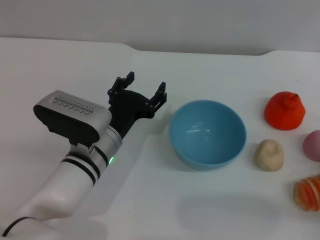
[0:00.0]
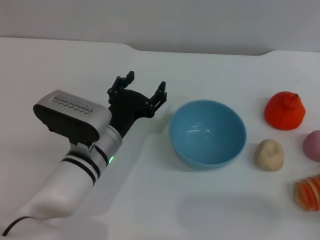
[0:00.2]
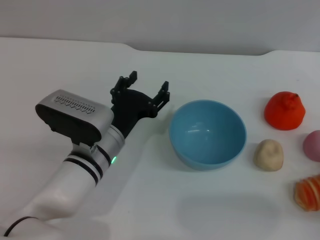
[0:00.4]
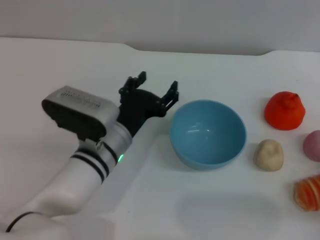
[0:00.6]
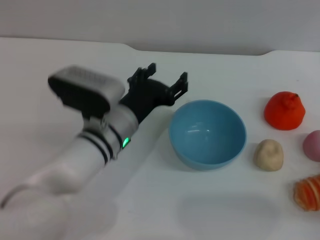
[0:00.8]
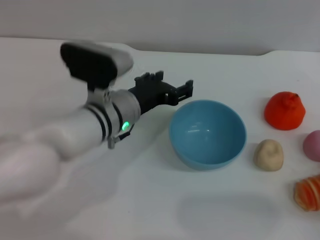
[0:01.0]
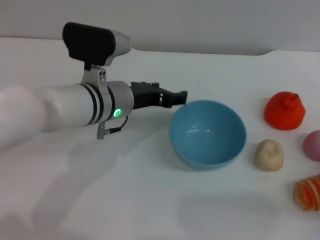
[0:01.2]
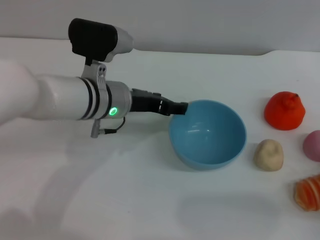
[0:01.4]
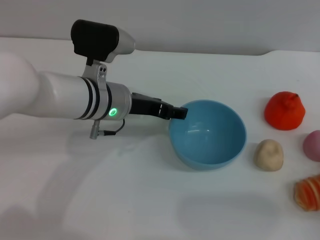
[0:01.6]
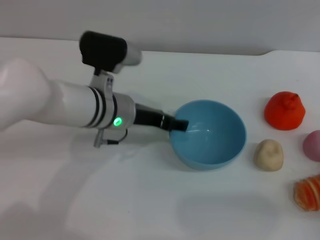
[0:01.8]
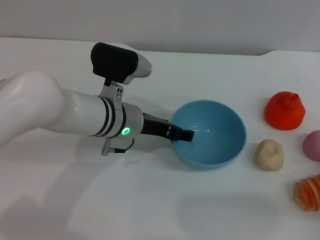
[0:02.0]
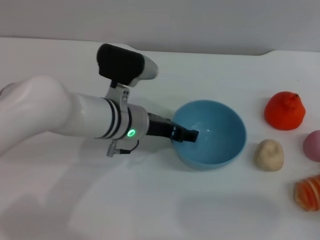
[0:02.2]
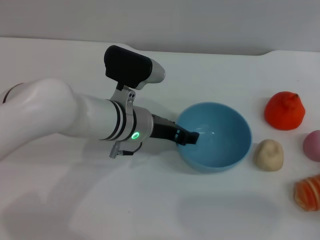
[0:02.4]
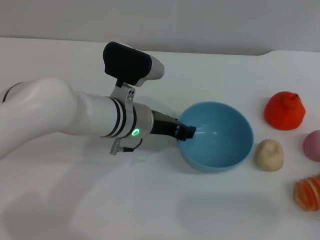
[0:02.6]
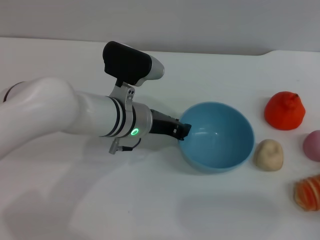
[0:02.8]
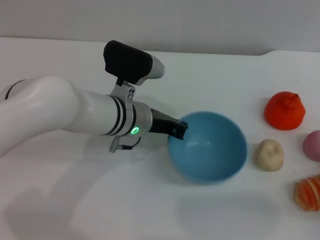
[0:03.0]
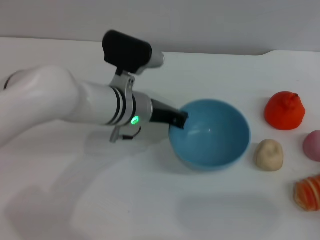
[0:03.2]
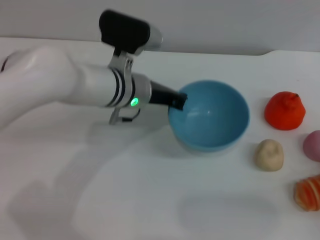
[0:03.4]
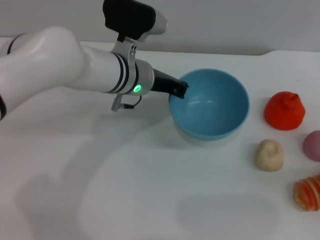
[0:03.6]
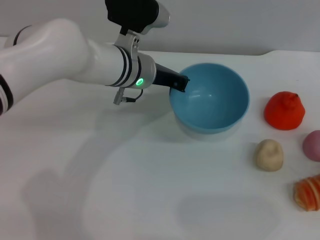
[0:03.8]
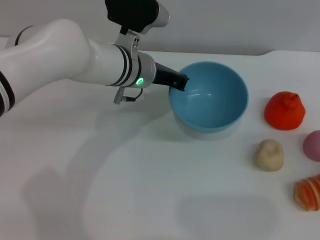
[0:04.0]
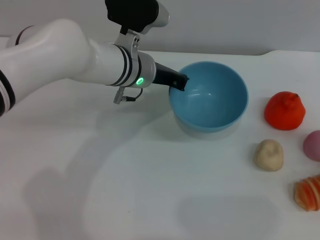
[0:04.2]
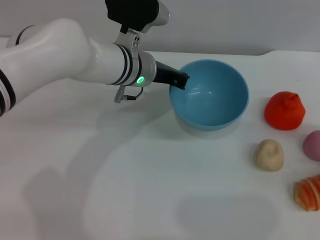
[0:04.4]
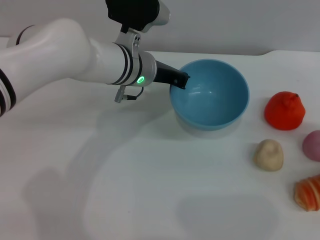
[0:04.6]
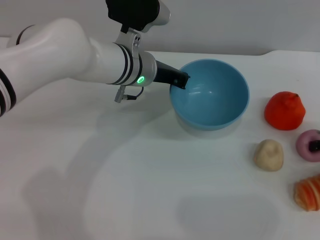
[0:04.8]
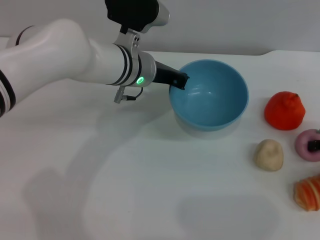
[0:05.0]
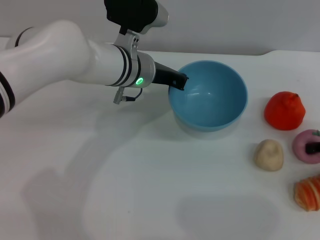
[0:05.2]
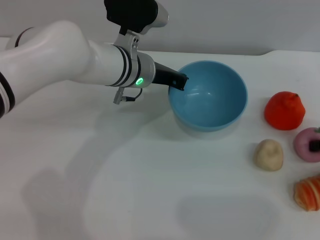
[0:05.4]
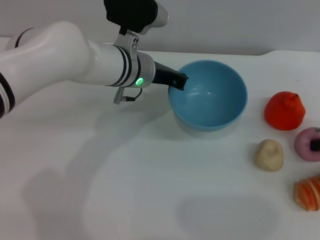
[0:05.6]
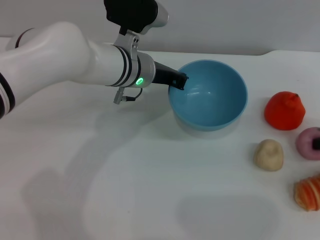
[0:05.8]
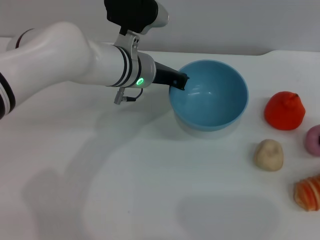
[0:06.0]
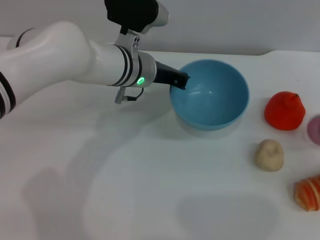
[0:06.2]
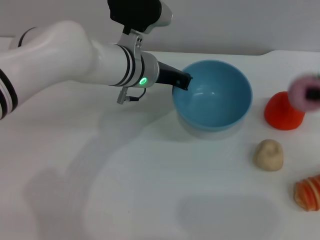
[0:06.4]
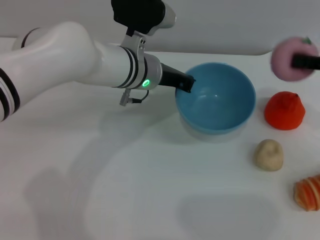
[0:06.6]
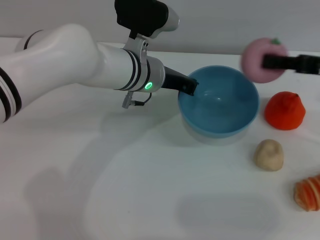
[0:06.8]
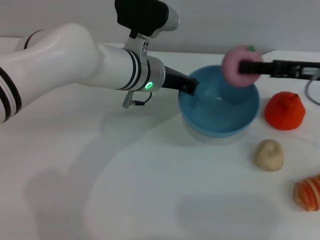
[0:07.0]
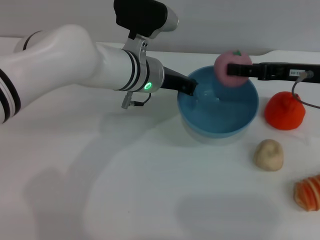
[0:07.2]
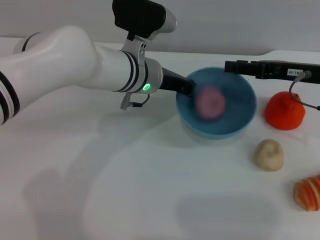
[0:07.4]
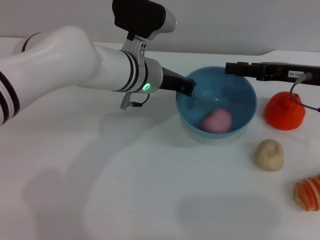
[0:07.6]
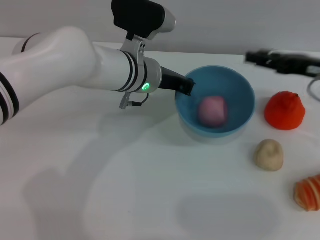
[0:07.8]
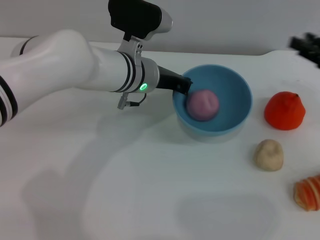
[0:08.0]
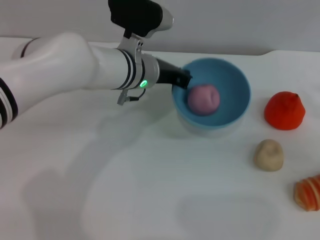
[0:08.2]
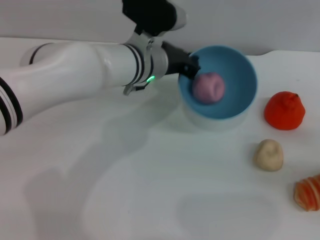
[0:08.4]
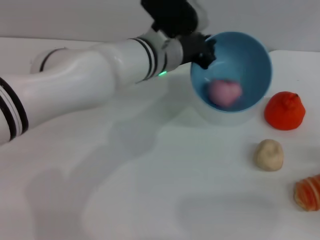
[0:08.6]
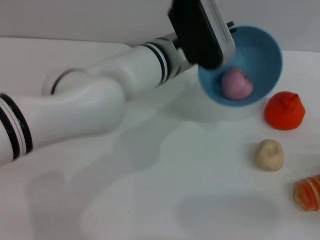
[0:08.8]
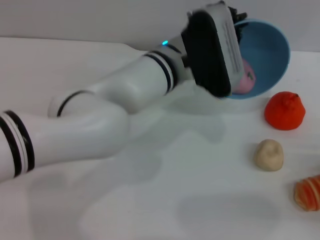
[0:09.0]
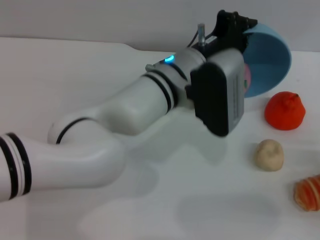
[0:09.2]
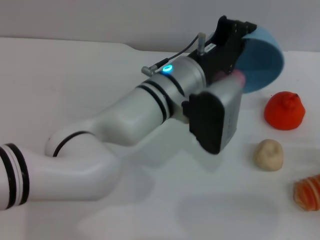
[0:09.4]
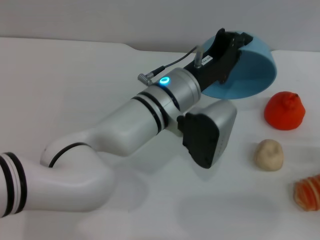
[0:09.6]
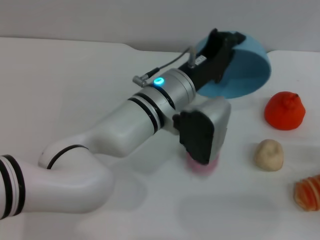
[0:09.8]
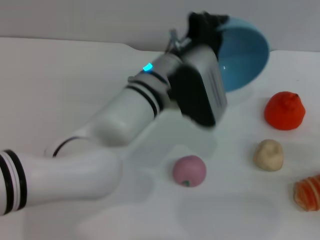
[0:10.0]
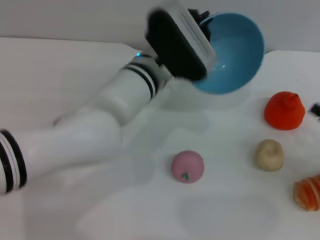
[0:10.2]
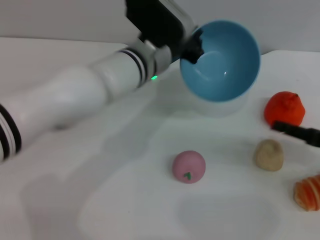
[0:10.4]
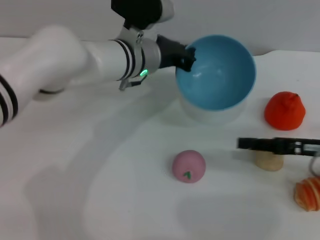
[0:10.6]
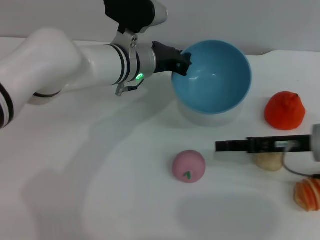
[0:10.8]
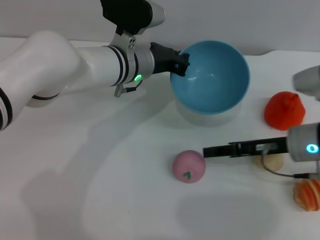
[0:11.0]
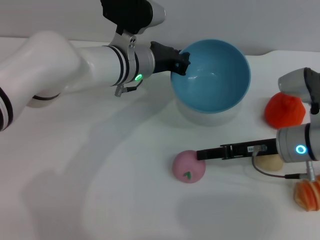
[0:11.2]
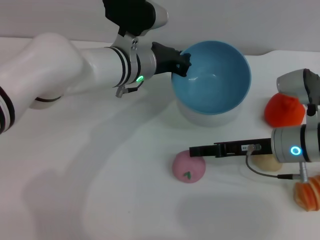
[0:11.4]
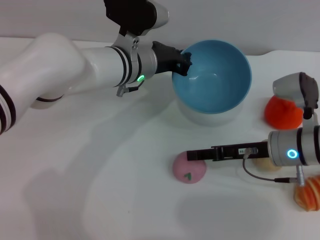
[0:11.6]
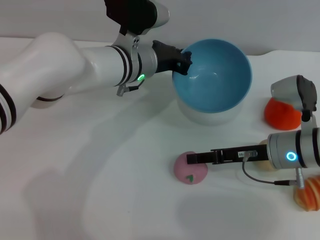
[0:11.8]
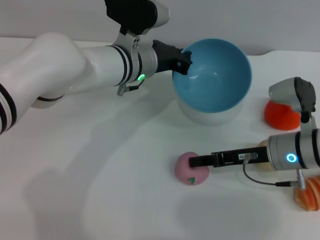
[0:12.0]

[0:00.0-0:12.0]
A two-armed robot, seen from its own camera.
Task of the whole recording: put the peach into the blue bowl and pour it out repeatedly.
Step, 0:00.0 to 0:04.8: Pick up the bowl with the left gripper.
Step, 0:05.0 to 0:06.2: Pick up the peach with the right gripper.
Step, 0:06.6 to 0:07.6: Place the peach into the bowl.
Step, 0:07.8 to 0:09.8: Pour the peach out of bowl.
0:00.0 to 0:01.6: The left gripper moves upward and forward, approximately 10 cm.
0:01.6 to 0:03.0: The left gripper closes its fingers.
0:03.0 to 0:04.4: The left gripper goes some 5 cm forward. The right gripper heads upward, forward and to the right, covering roughly 15 cm.
0:04.4 to 0:06.0: The right gripper closes.
0:06.0 to 0:07.6: The right gripper shifts approximately 10 cm to the left.
0:07.6 to 0:09.0: The left gripper moves to the right, approximately 5 cm; the right gripper heads backward, to the right and downward, covering some 25 cm.
0:09.0 to 0:10.4: The left gripper moves about 5 cm. The right gripper goes approximately 10 cm forward, to the left and upward.
0:10.4 to 0:12.0: The right gripper is displaced to the left by roughly 15 cm.

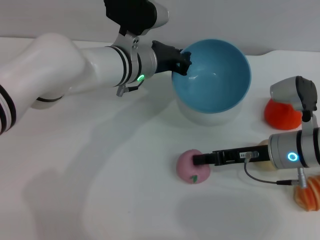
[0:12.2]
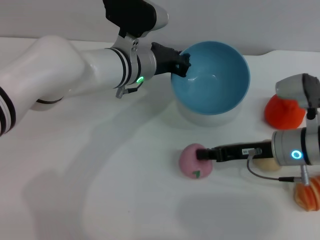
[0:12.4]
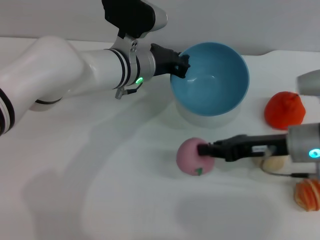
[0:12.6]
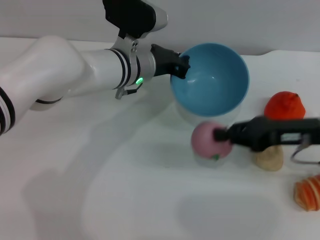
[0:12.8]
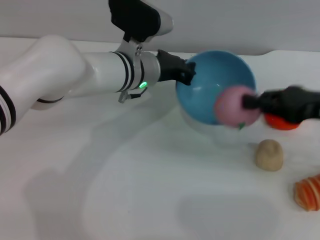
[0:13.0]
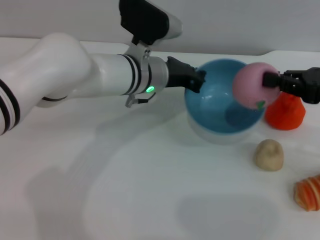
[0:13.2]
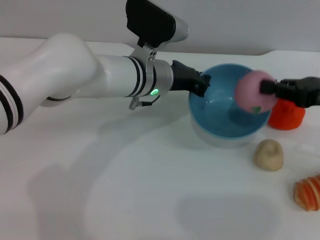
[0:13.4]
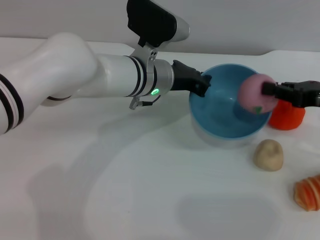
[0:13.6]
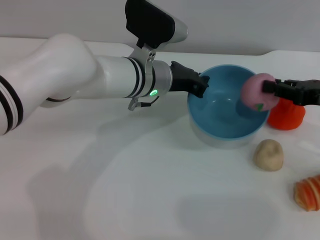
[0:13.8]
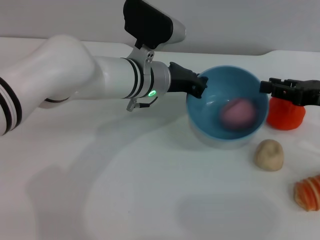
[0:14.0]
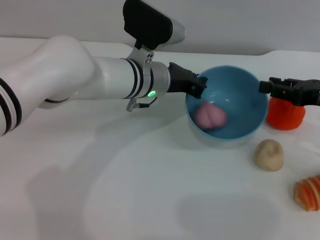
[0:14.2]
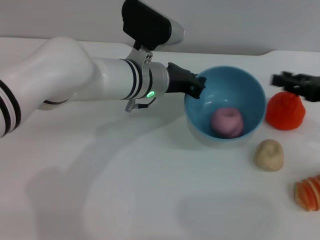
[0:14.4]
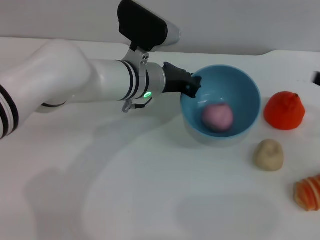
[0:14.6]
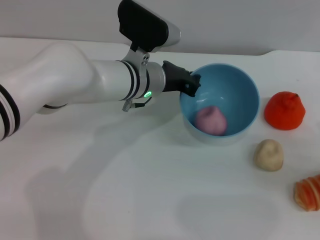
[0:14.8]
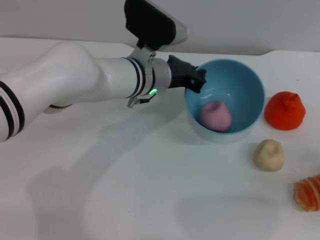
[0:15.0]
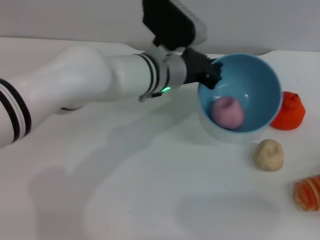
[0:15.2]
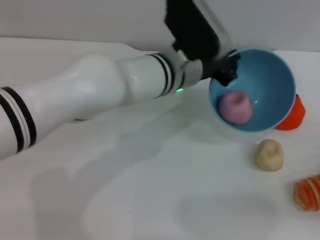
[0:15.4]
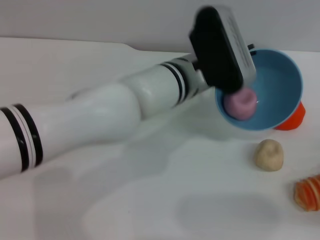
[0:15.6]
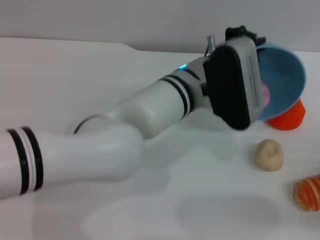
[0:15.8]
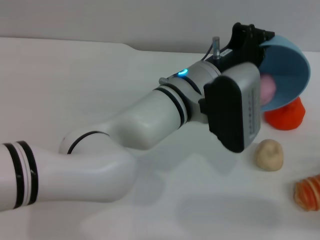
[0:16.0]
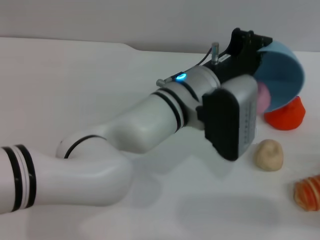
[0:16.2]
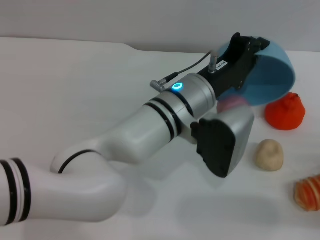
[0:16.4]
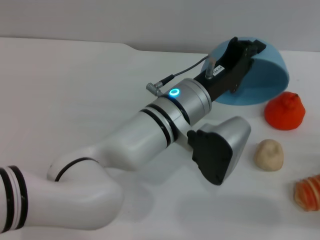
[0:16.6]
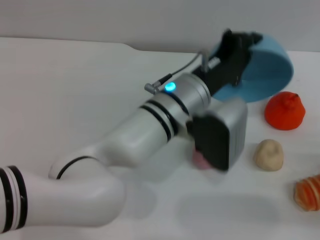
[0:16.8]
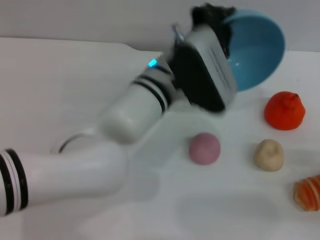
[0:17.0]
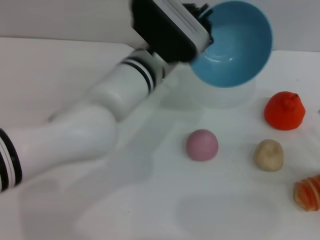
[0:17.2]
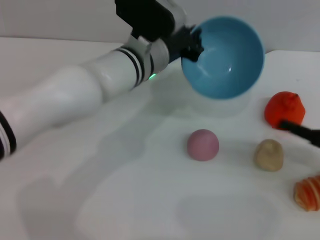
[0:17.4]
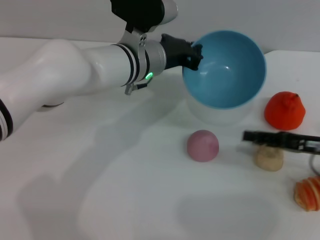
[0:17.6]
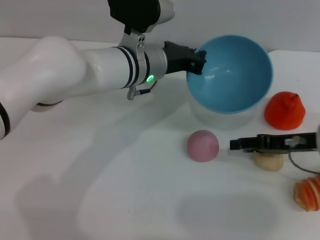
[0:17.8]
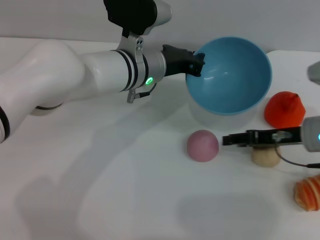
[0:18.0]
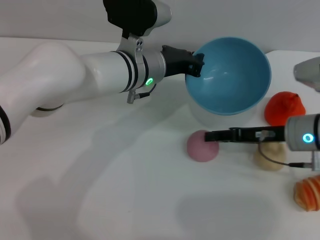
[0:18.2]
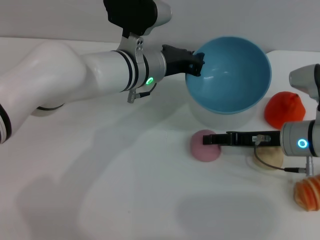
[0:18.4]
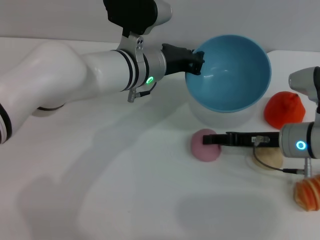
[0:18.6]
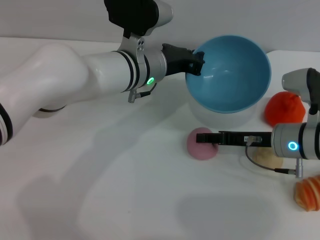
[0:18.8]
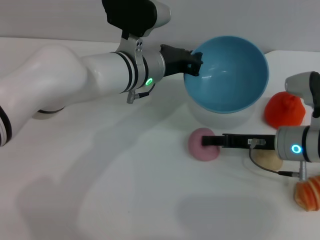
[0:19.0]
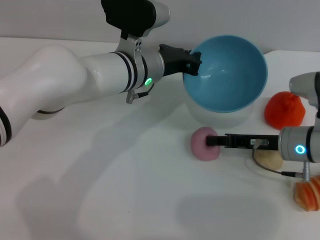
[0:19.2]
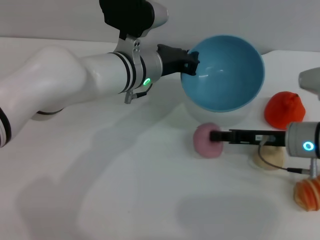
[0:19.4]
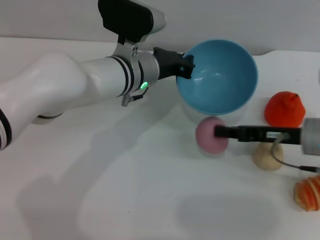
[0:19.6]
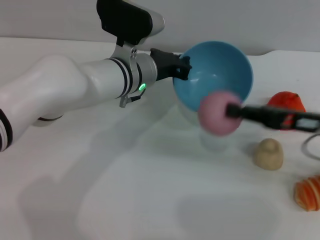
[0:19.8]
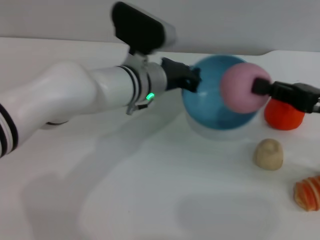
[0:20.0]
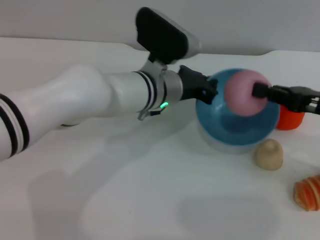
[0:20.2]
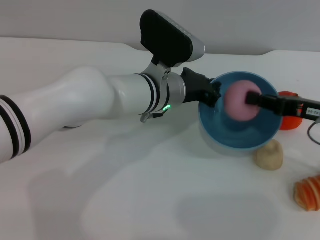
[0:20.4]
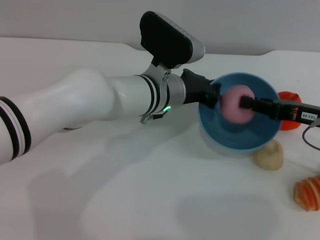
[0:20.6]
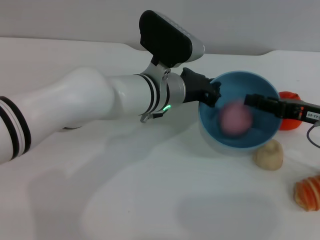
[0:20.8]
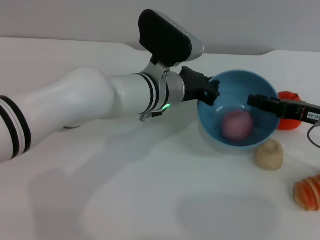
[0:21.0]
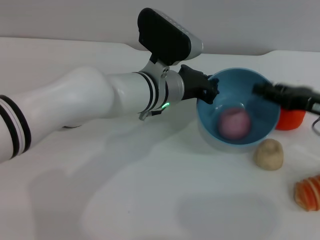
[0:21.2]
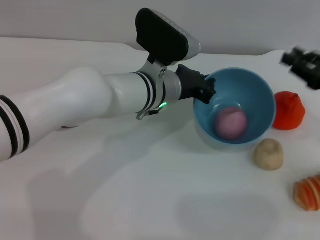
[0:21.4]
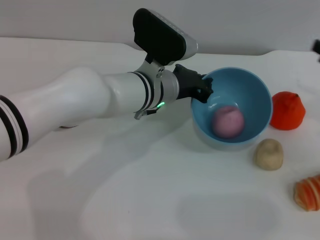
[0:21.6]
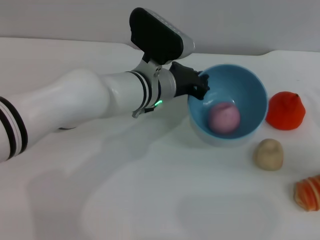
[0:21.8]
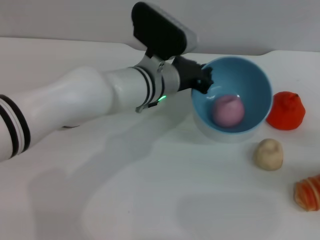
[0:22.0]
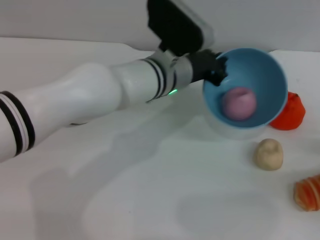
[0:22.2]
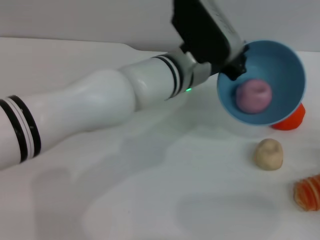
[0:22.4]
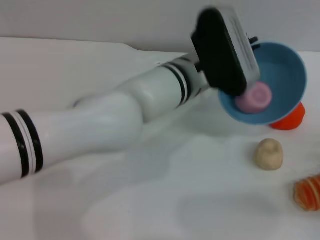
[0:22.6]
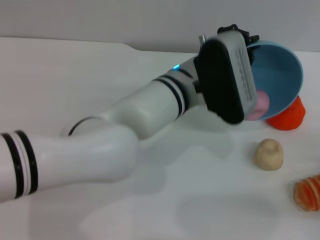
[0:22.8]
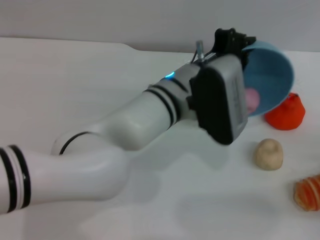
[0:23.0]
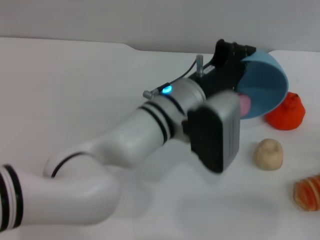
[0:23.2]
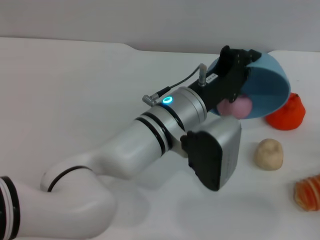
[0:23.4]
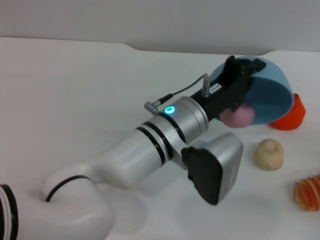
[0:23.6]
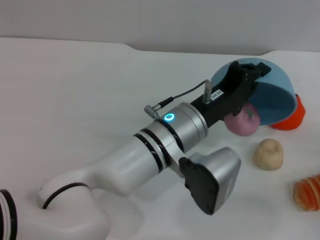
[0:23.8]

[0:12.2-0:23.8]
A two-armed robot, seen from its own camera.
Task of the whole recording: put the peach into the blue bowl and pour it out repeatedly.
Step, 0:13.2 to 0:14.2: Place the peach into the bowl.
Step, 0:14.4 to 0:16.8: Pour the peach out of bowl.
Step, 0:17.0 to 0:19.8: Pick up the peach with the right gripper.
Step, 0:20.0 to 0:21.2: Place the peach into the bowl.
0:12.2 to 0:13.6: The right gripper is displaced to the right and upward by some 15 cm.
0:13.6 to 0:15.0: The right gripper goes some 15 cm backward, to the right and downward, and opens up.
0:15.0 to 0:16.6: The left gripper heads backward, covering approximately 10 cm.
0:16.6 to 0:18.0: The right gripper shifts roughly 20 cm forward and to the left; the left gripper goes approximately 10 cm forward and to the left.
0:18.0 to 0:19.4: The right gripper closes up.
0:19.4 to 0:21.0: The right gripper moves to the right, some 5 cm.
0:21.0 to 0:22.4: The right gripper shifts roughly 15 cm backward, to the right and downward.
0:22.4 to 0:23.8: The left gripper goes some 10 cm backward.
